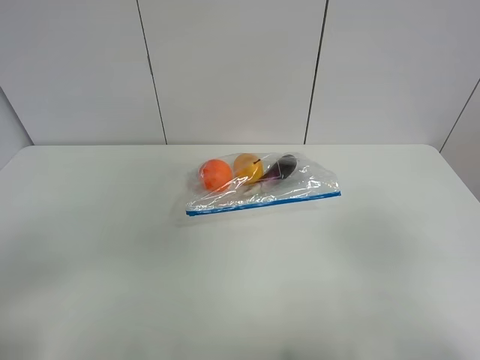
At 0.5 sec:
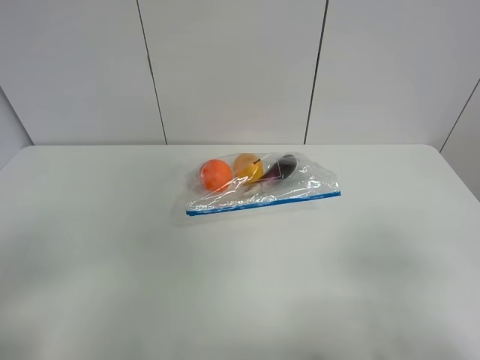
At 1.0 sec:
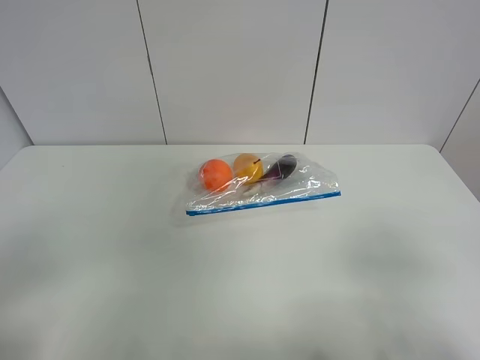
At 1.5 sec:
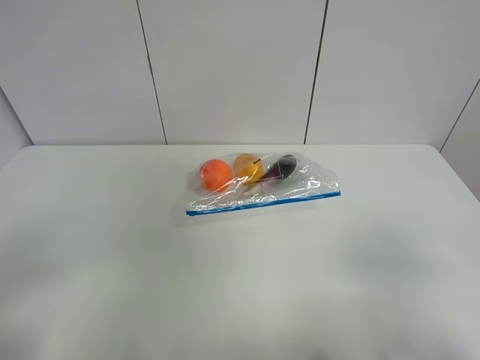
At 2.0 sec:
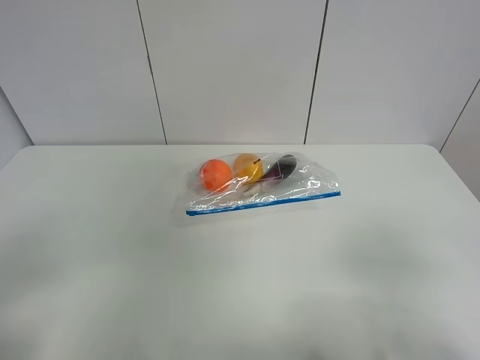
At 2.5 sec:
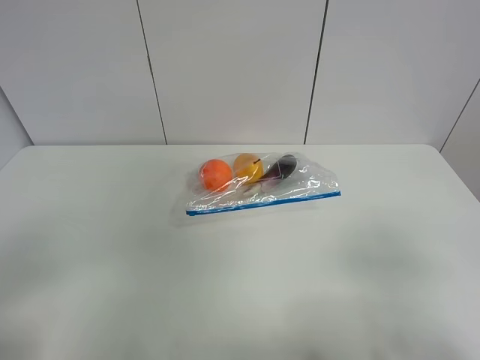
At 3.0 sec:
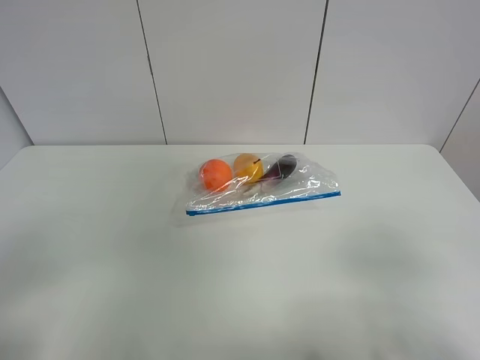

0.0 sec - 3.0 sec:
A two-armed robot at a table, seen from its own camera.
1.5 sec - 3.0 sec: Both grippers stay put.

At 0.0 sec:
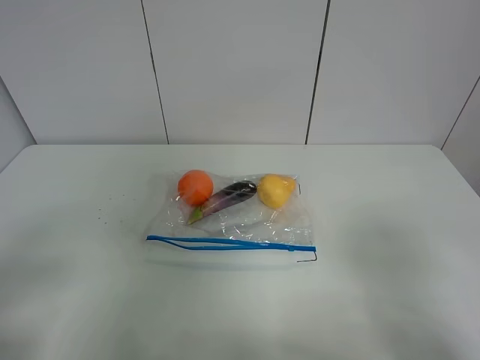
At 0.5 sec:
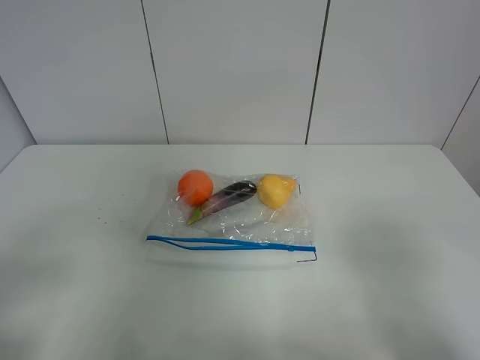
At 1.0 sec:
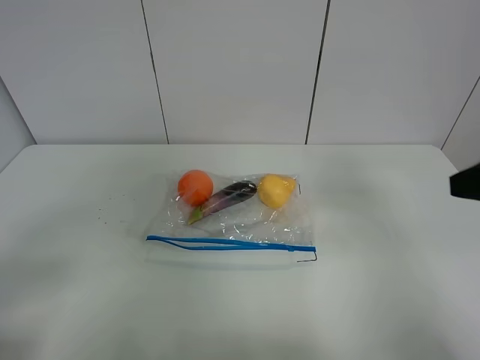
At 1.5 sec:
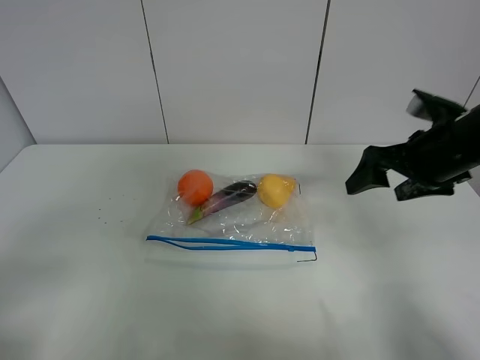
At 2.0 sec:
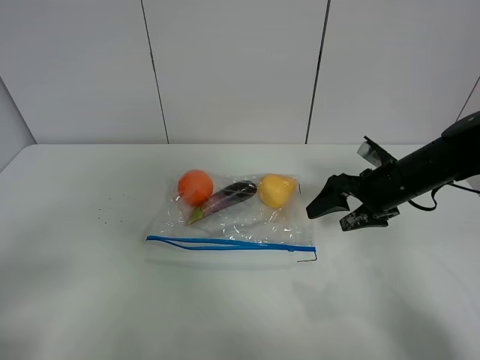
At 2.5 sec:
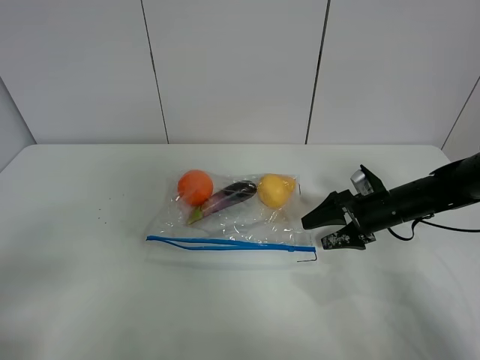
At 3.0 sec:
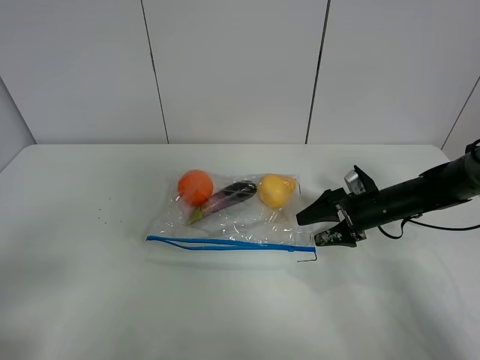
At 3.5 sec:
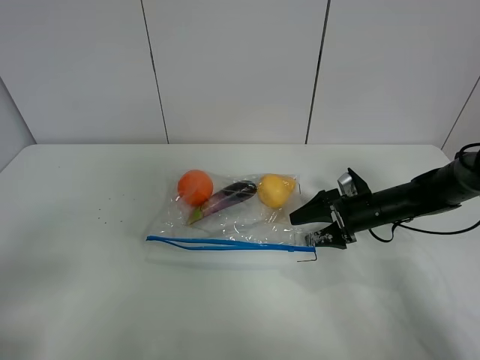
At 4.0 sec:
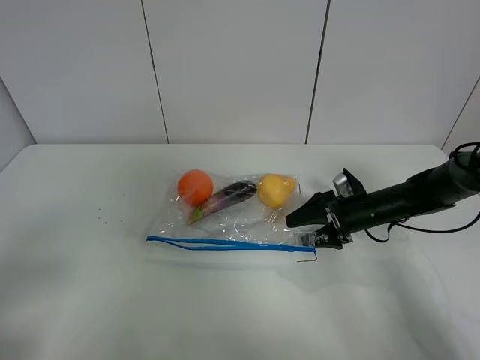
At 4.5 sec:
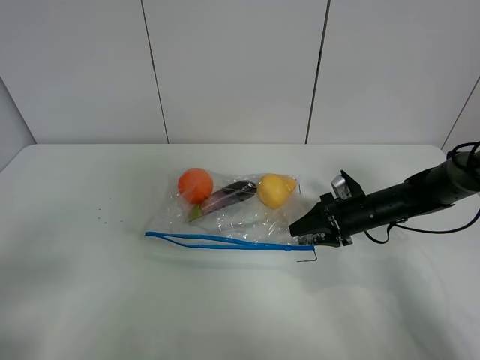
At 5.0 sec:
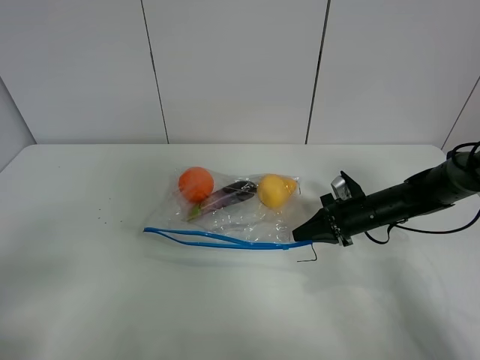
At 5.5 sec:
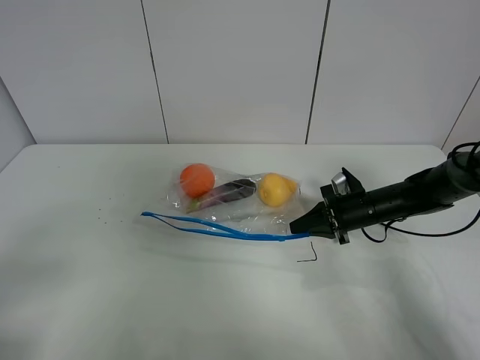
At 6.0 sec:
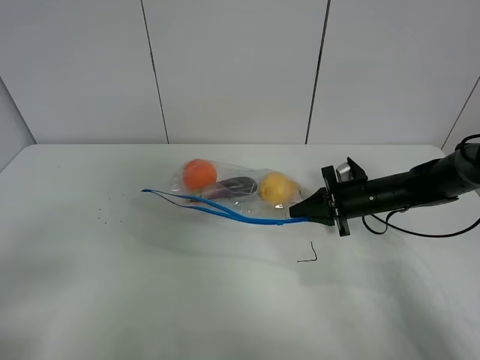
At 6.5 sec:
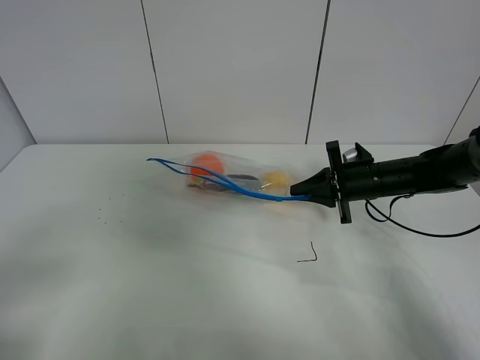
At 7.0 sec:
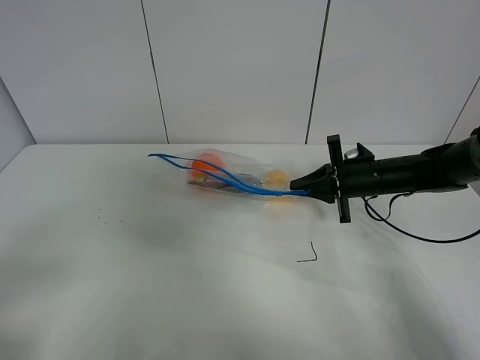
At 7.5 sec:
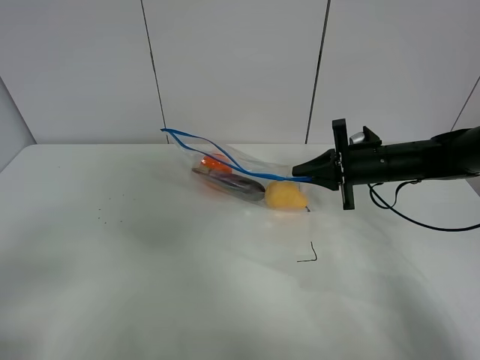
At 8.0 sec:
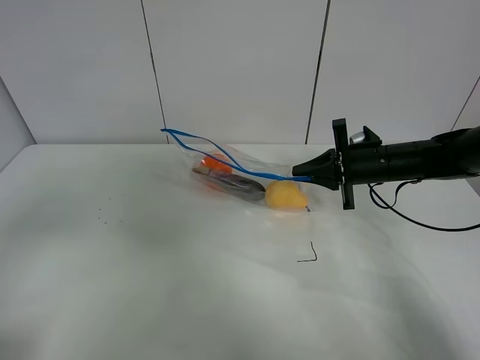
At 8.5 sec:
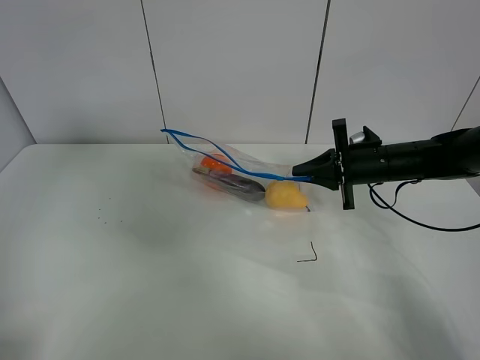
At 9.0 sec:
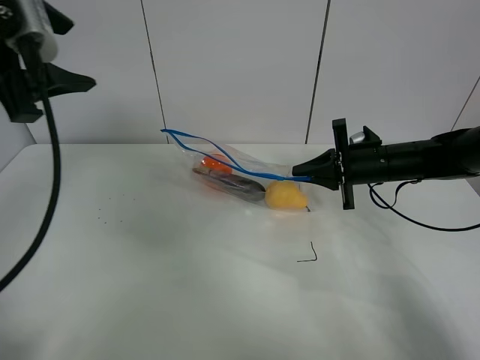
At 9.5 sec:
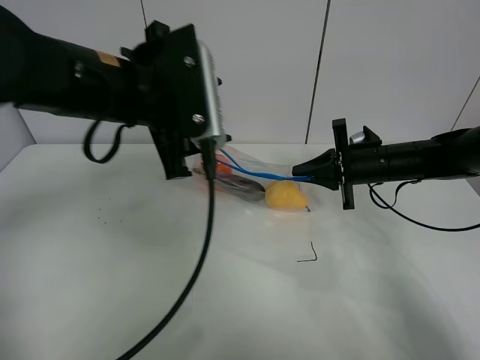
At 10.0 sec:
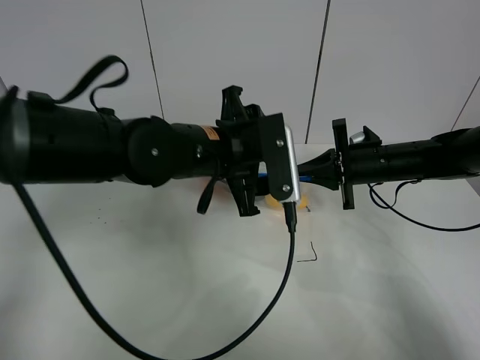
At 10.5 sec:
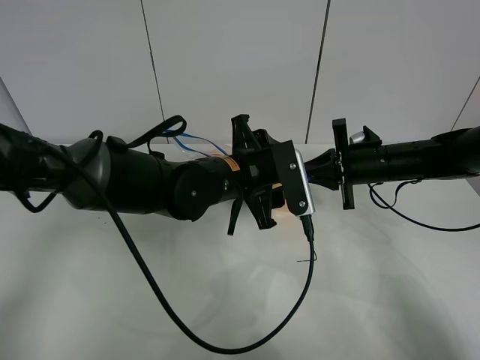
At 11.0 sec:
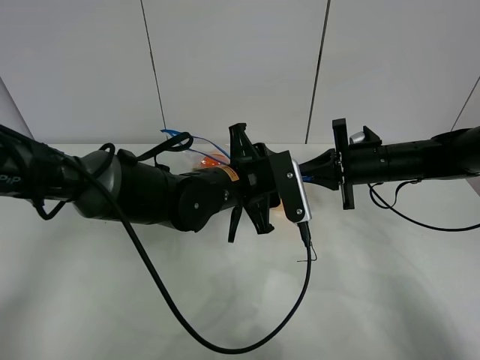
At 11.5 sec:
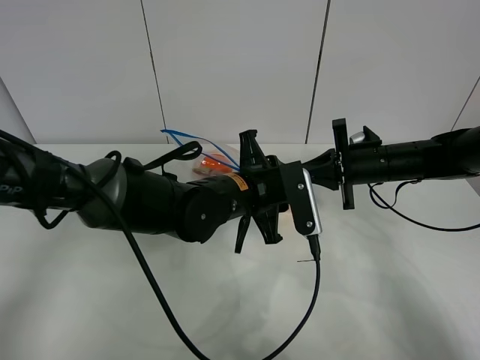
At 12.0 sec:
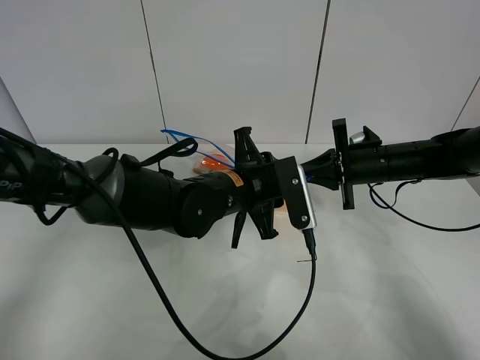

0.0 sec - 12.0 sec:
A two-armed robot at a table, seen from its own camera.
Step, 0.0 sec - 4.5 sec: Grasp the fruit bag with right gripper.
Step, 5.0 sec - 7.5 sec: Lift the fruit bag with your right gripper.
0.0 sec - 2.0 sec: The right gripper moves forward, some 30 cm.
2.0 sec - 4.0 sec: The right gripper shifts roughly 10 cm downward.
4.0 sec - 6.0 sec: The right gripper closes.
6.0 sec - 8.0 sec: Both grippers move upward, approximately 10 cm.
8.0 sec - 10.0 sec: The left gripper heads to the right, forward and downward, covering some 40 cm.
10.0 sec - 12.0 sec: The left gripper is displaced downward by some 5 cm, and closes up.

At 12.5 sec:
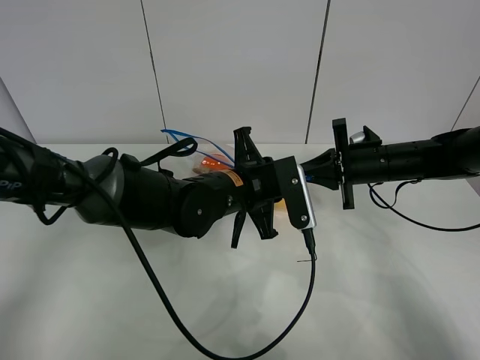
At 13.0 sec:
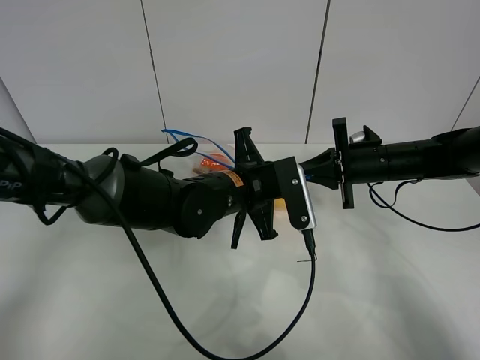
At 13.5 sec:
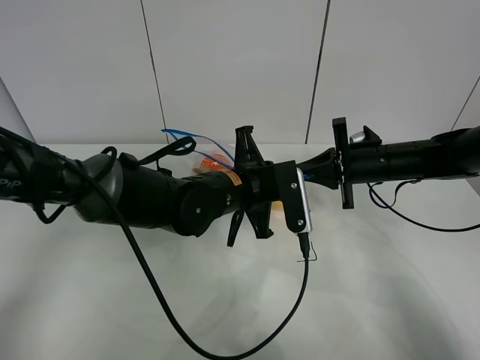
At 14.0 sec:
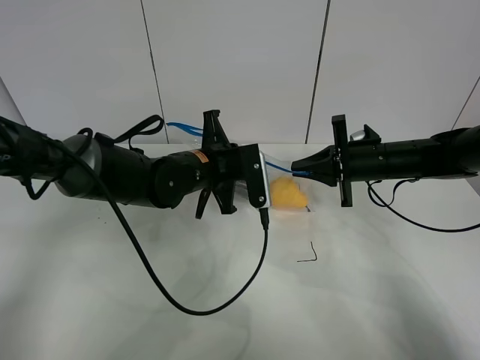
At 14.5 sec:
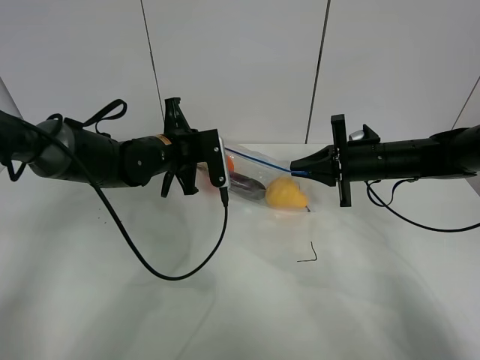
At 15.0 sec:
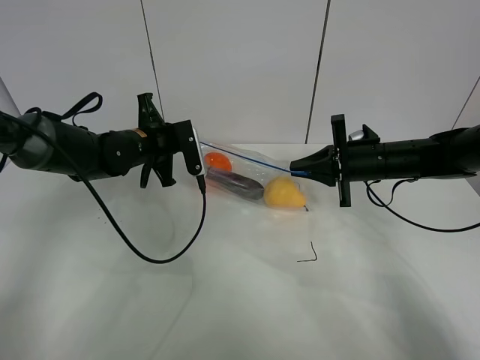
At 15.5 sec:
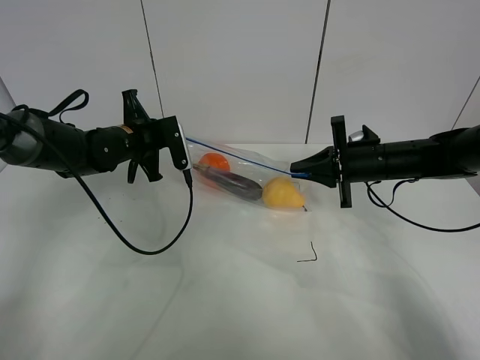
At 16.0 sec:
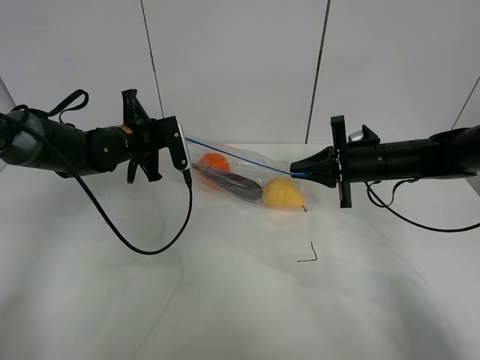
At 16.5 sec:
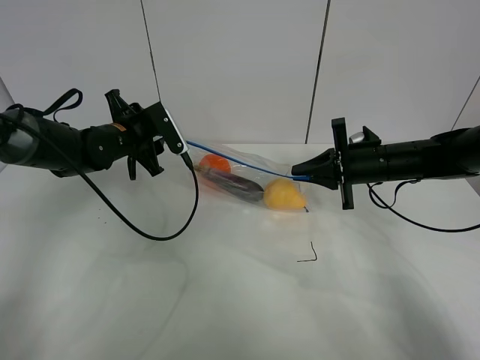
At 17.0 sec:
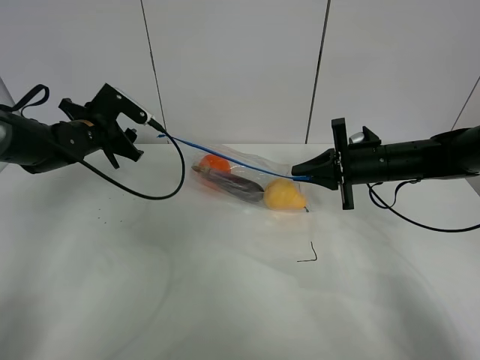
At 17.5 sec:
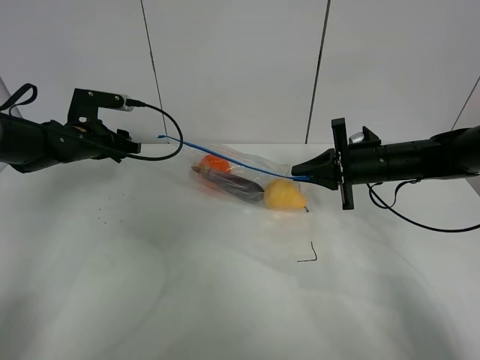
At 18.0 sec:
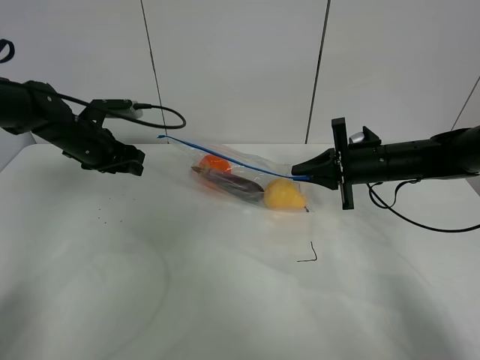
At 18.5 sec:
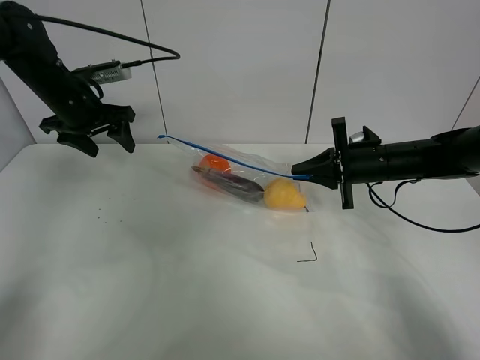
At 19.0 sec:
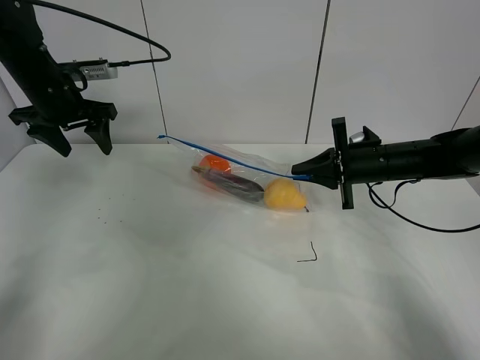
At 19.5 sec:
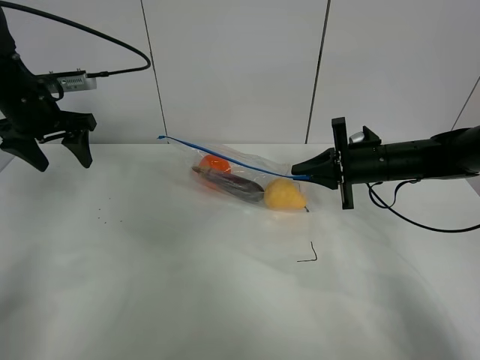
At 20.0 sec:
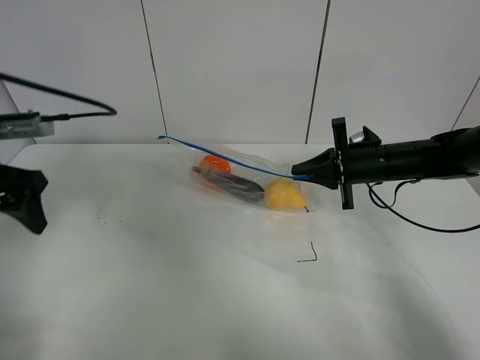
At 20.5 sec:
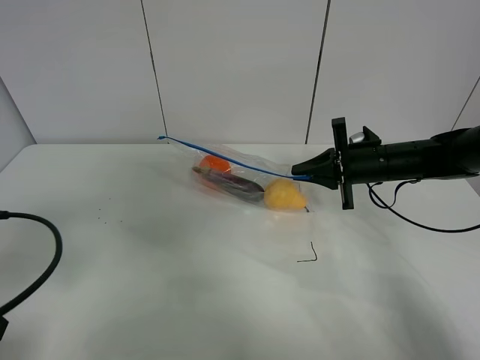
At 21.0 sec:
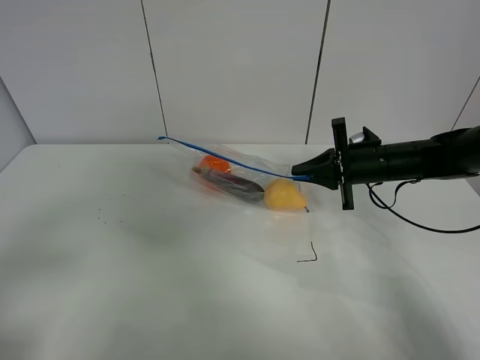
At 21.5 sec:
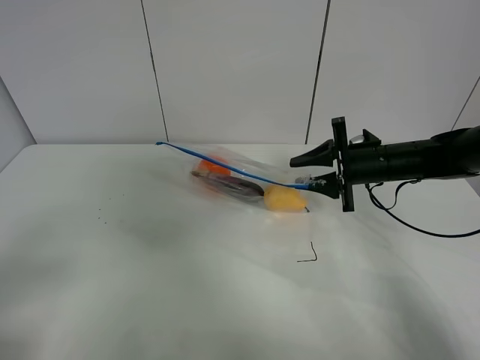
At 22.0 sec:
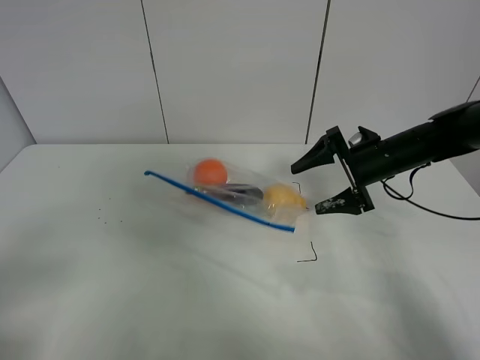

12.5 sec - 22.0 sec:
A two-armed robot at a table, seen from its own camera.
Step, 12.5 sec - 16.5 sec: Pull the fruit bag with left gripper.
12.5 sec - 14.5 sec: The left gripper heads to the left and forward, covering about 15 cm.
14.5 sec - 16.5 sec: The left gripper is displaced to the left by roughly 5 cm, and opens up.
16.5 sec - 18.0 sec: The left gripper moves to the left, approximately 5 cm.
18.0 sec - 20.0 sec: The left gripper goes some 20 cm backward and upward.
20.0 sec - 22.0 sec: The left gripper moves backward, roughly 25 cm. The right gripper opens.

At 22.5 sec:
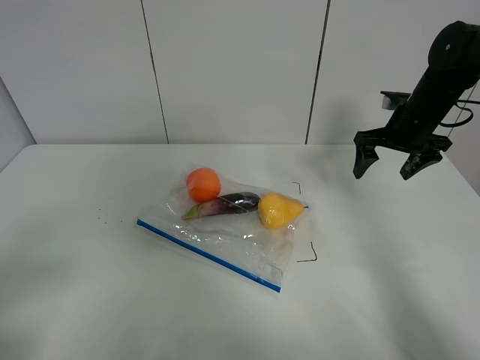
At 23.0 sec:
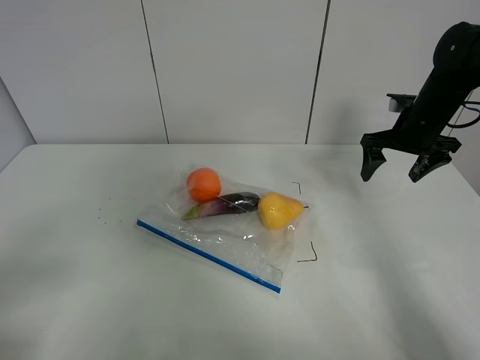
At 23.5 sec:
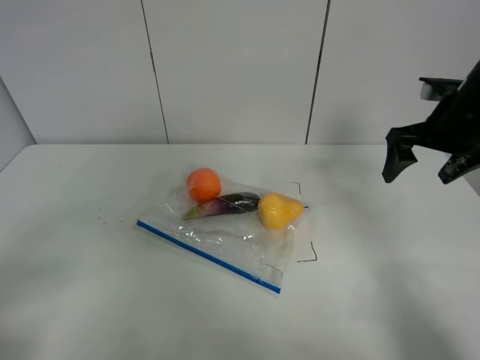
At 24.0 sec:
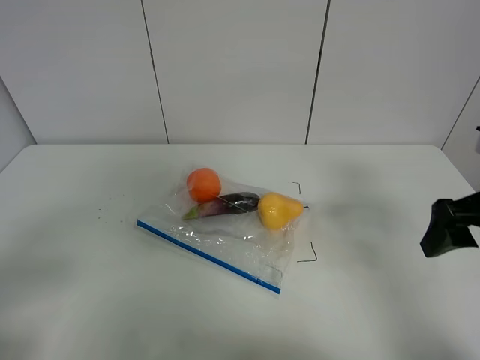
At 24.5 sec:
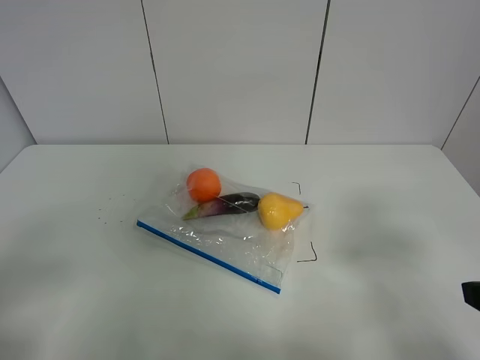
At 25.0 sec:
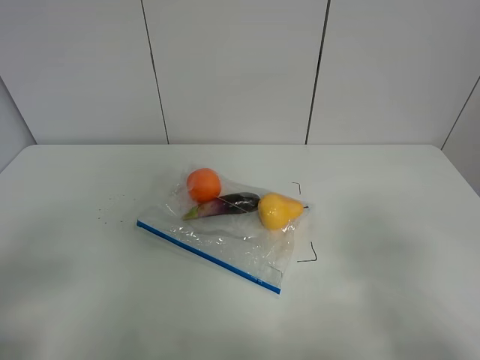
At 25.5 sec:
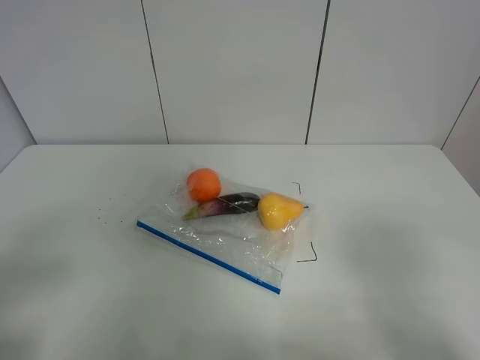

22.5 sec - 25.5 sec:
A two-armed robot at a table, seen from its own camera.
22.5 sec - 24.0 sec: The right gripper heads backward, covering about 25 cm.
24.0 sec - 25.5 sec: The right gripper travels backward by about 20 cm.
